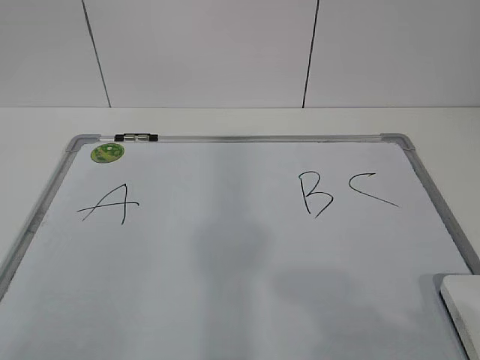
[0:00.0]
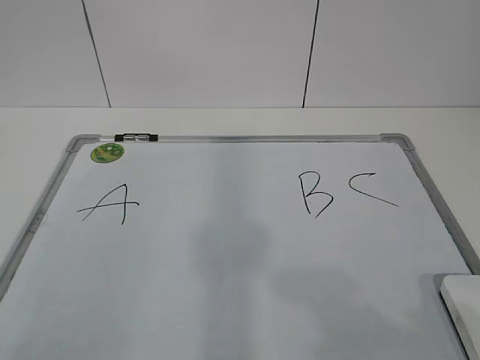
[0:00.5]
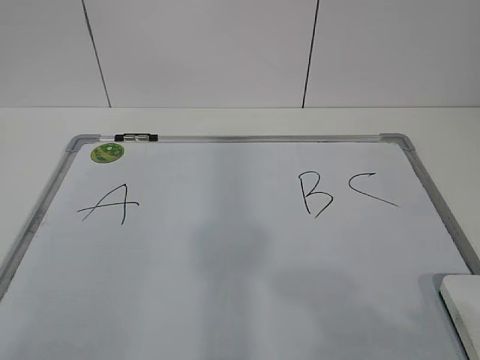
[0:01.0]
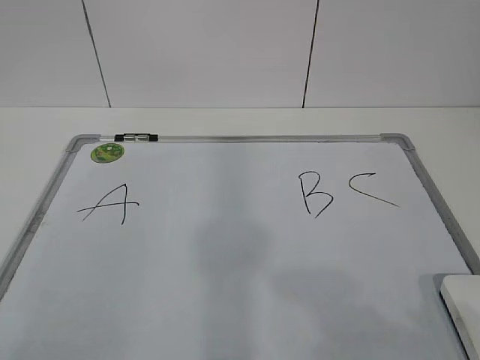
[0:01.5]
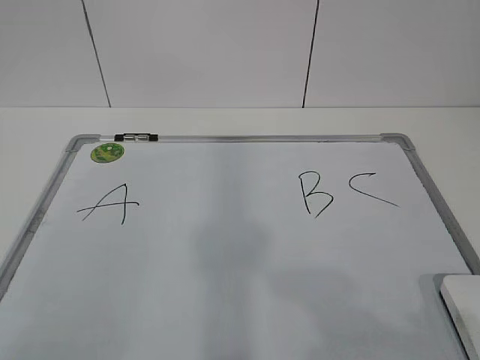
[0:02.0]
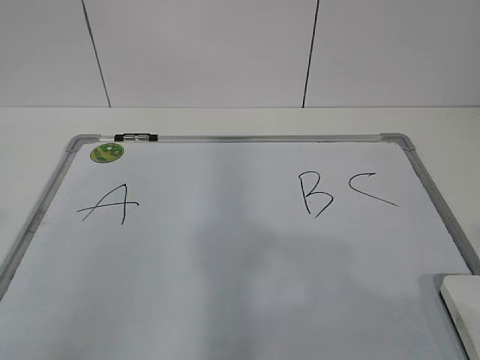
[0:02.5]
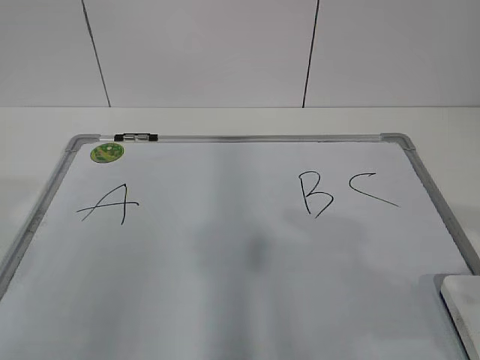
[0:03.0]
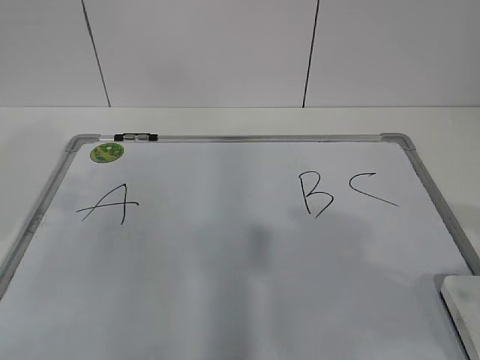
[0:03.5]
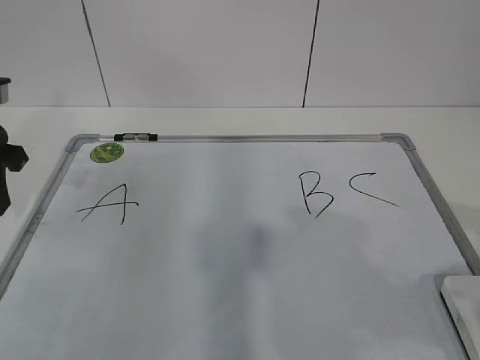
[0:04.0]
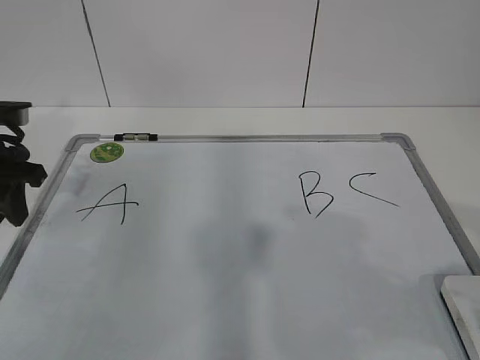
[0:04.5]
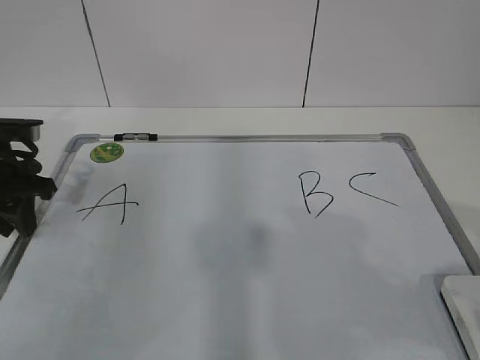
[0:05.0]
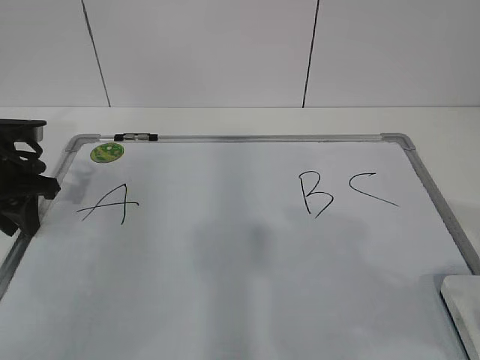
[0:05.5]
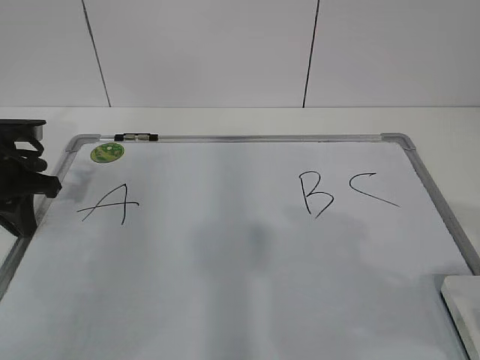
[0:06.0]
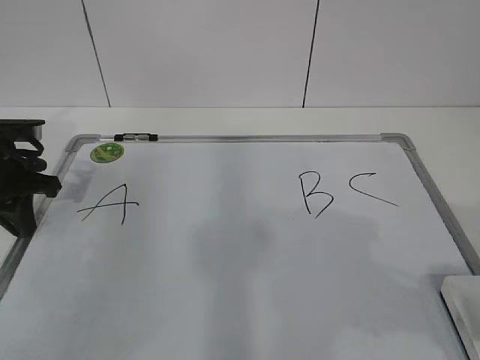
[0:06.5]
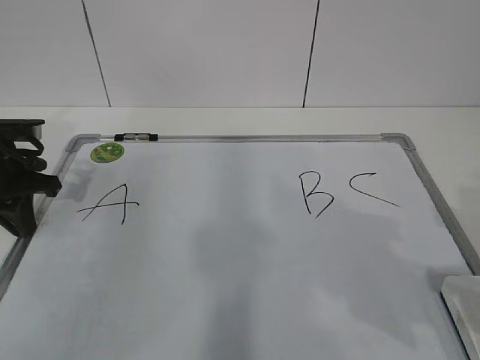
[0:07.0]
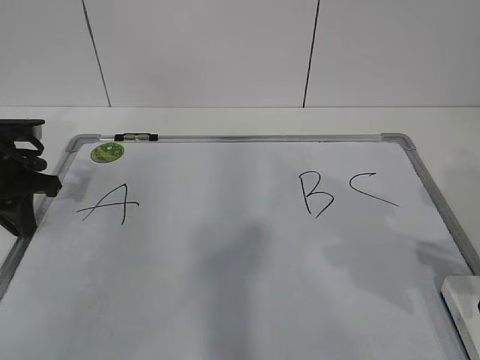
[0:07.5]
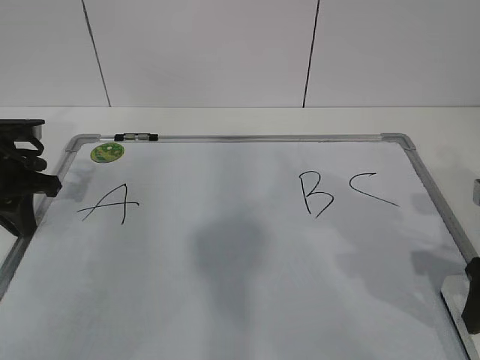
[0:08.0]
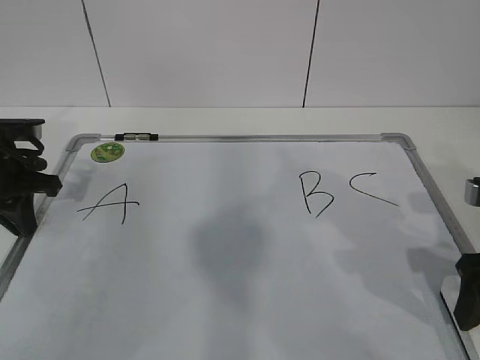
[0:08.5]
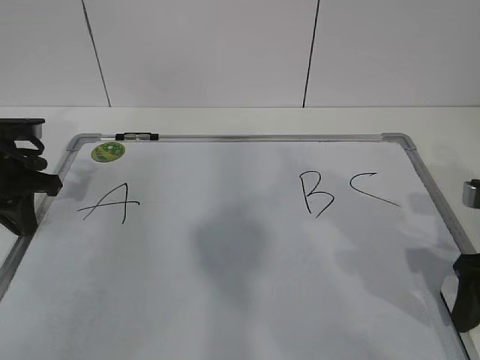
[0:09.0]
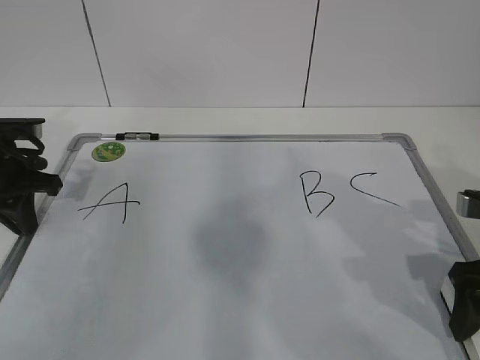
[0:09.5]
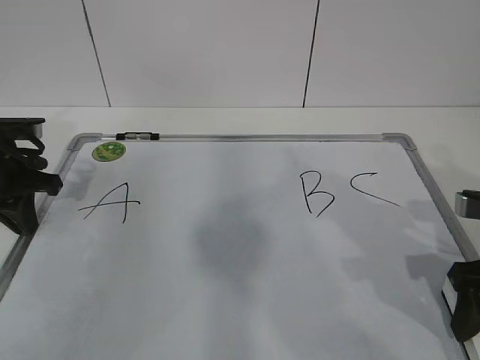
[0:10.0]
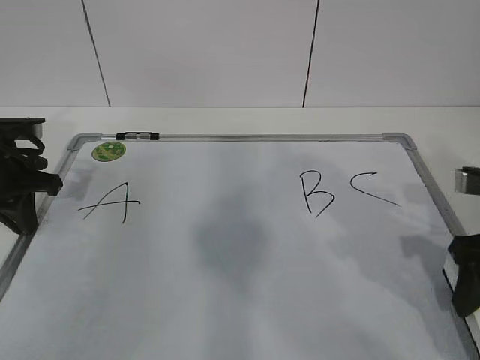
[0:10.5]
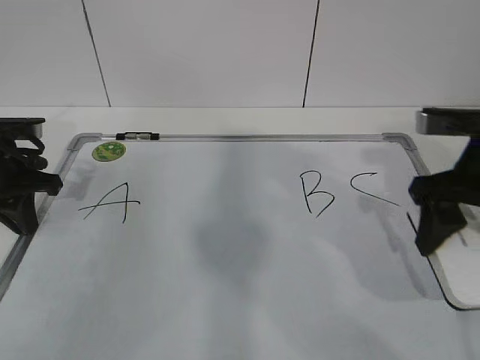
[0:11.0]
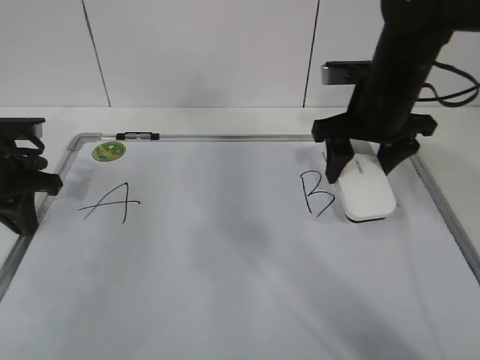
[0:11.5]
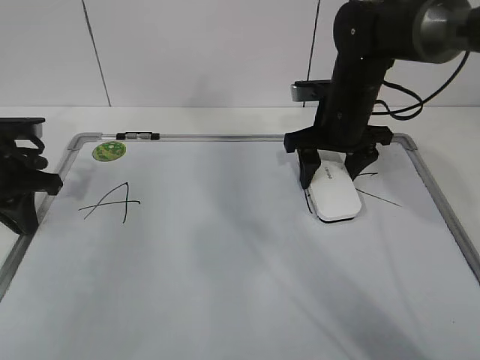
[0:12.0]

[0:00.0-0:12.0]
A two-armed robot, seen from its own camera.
Task of the whole recording: pick up the eraser on the blackboard and erase the letter "B".
Step, 0:00.0 to 0:04.5: Hold the drawing board steady with your left hand.
0:02.0 to 0:04.0: The right gripper moves forward, roughly 10 cm. The left gripper shifts roughly 30 cm forward.
0:04.0 to 0:06.0: The left gripper travels downward by some 10 cm, and closes up.
0:06.0 to 0:08.0: The right gripper heads forward and downward, covering approximately 15 cm, and opens its fingers.
0:08.0 to 0:10.0: The right gripper closes.
0:10.0 to 0:12.0: The right gripper shifts roughly 25 cm forward and to the left.

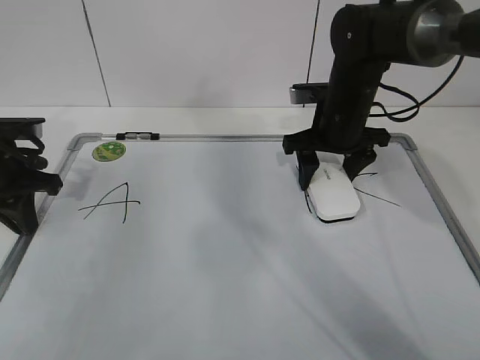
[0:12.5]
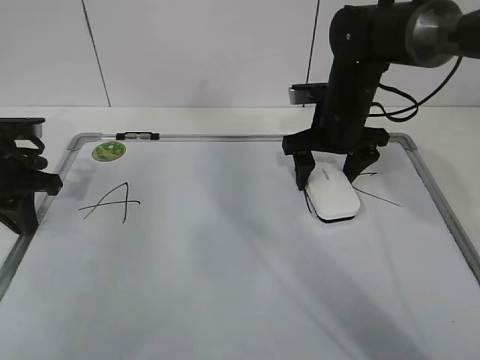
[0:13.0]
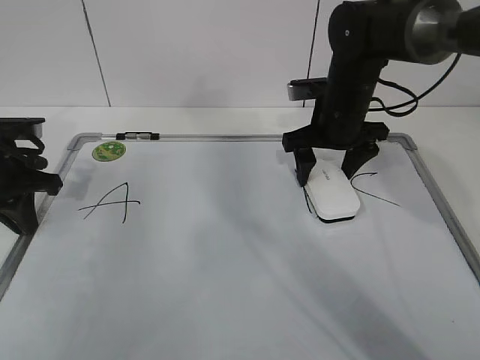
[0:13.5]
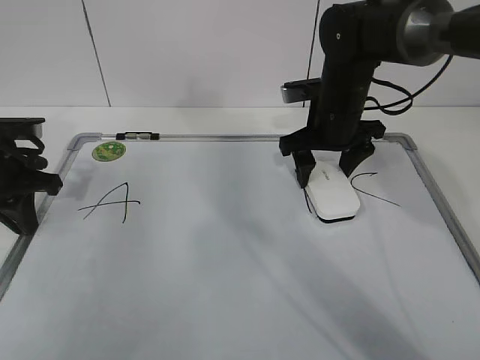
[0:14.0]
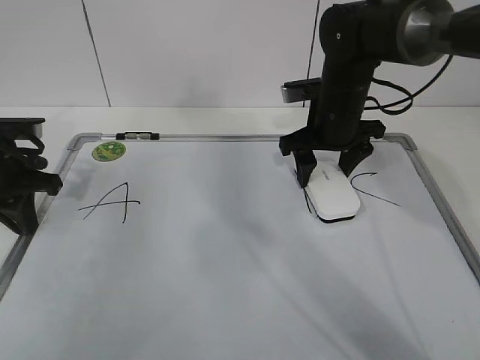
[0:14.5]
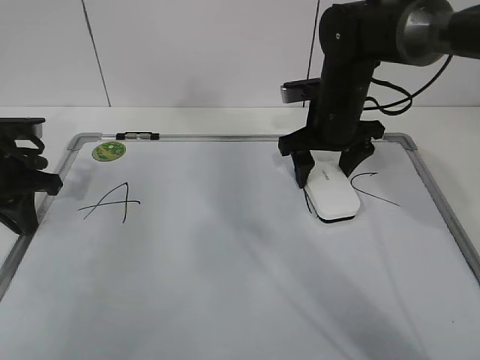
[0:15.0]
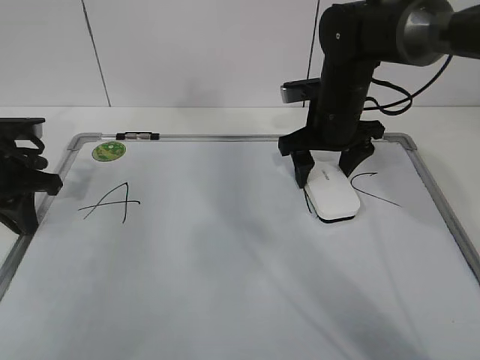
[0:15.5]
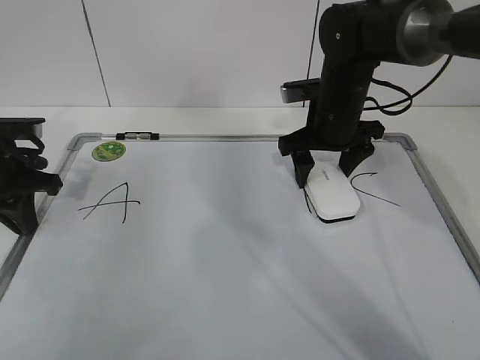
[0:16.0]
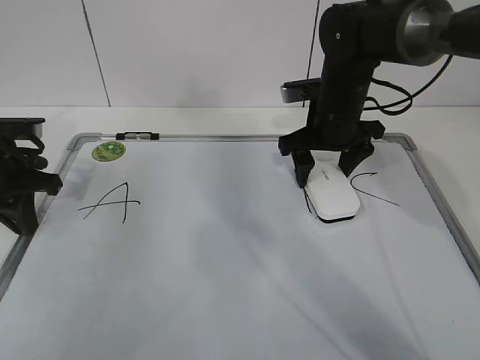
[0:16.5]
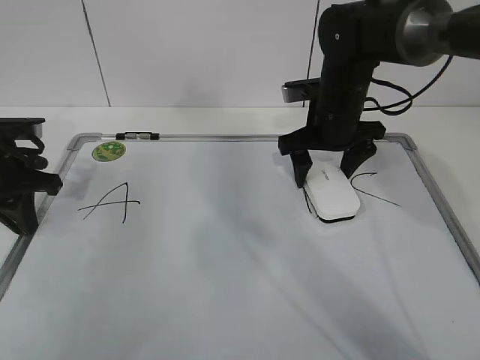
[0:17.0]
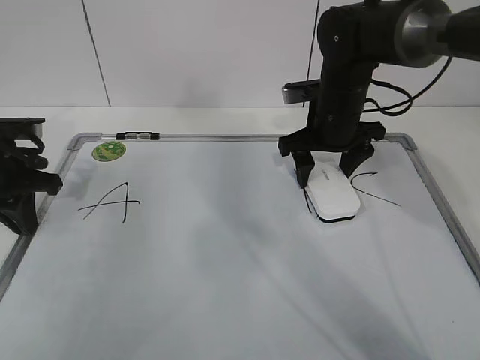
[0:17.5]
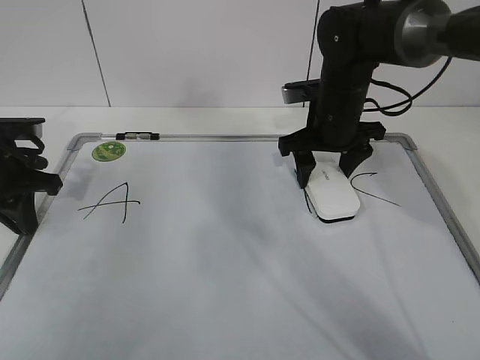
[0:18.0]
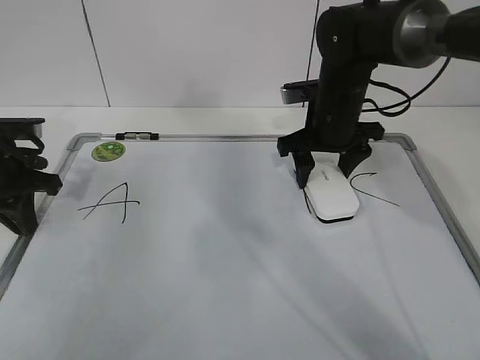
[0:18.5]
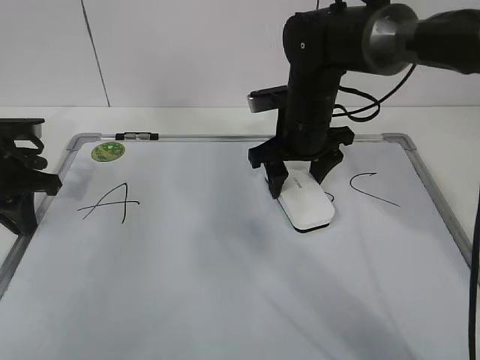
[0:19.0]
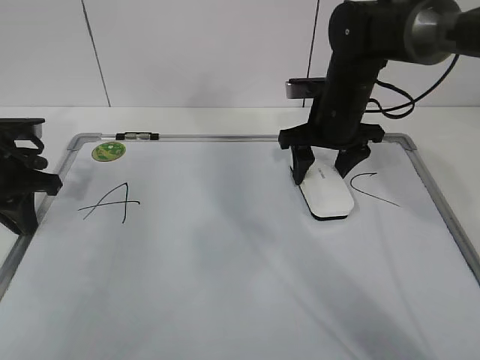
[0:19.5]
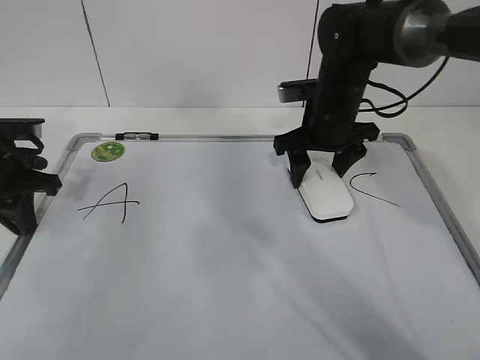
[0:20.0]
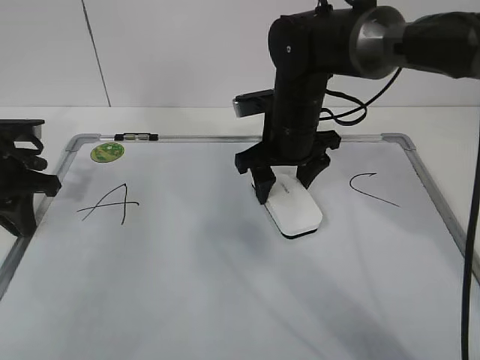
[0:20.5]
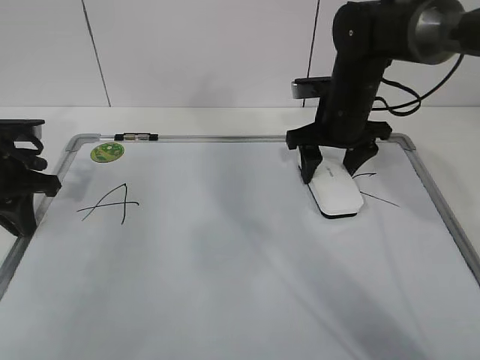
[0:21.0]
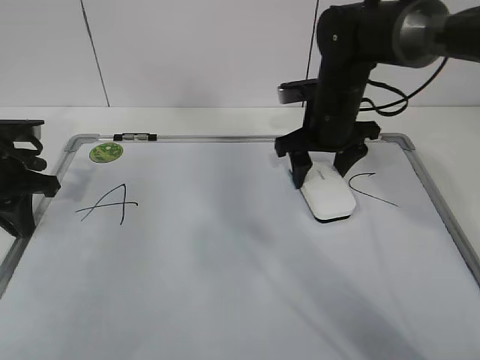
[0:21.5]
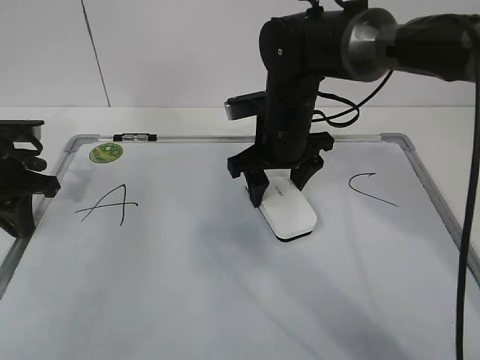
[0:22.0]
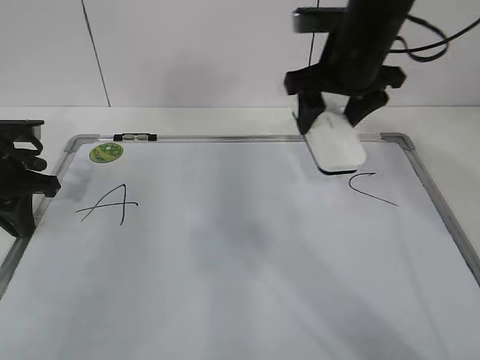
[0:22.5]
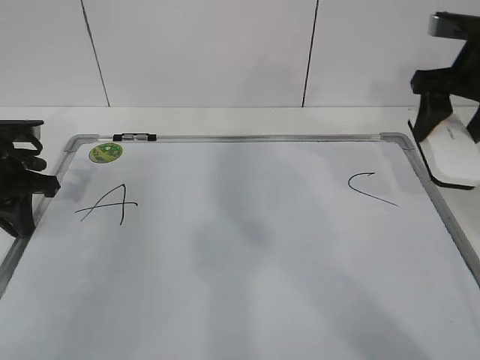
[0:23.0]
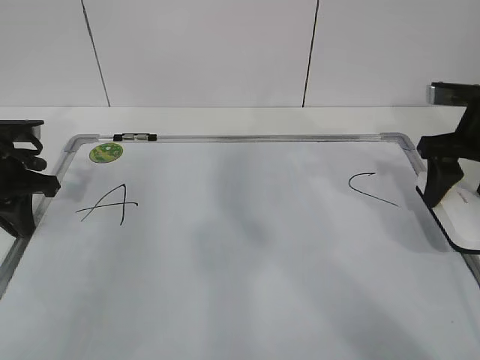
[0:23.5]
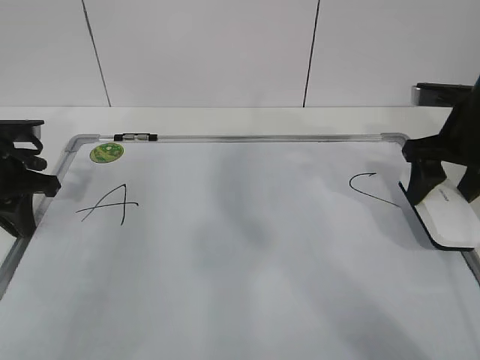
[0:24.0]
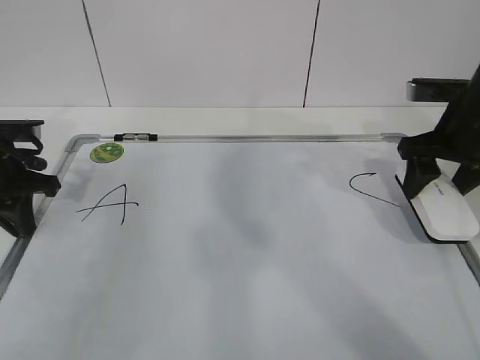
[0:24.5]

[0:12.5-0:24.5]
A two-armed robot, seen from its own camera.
Task of the whole recording: pick up the eraser on the blackboard and erase the letter "B".
Step, 0:12.5 to 0:14.5: Grab the eraser with your right hand.
Step, 0:15.0 to 0:18.0: Erase the letter B with your right hand.
Step, 0:18.5 to 0:21.5: Put down the eraser with your right hand.
0:12.5 to 0:14.5: The right gripper opens, then closes once more.
0:16.5 to 0:18.5: The right gripper closes.
0:18.5 to 0:20.5: The right gripper goes left and right, some 5 cm each way, reversing 2 times.
0:20.5 to 0:22.5: The right gripper travels upward and to the right by roughly 10 cm.
0:22.5 to 0:24.5: The right gripper shifts about 15 cm to the right.

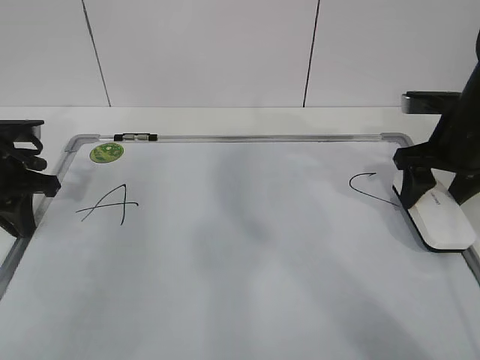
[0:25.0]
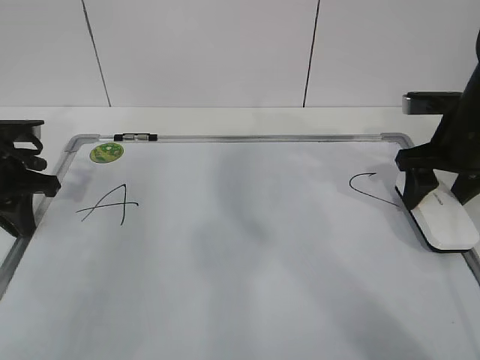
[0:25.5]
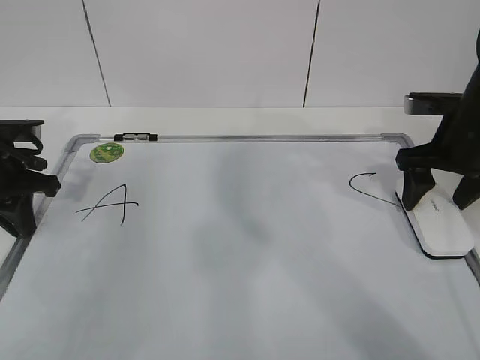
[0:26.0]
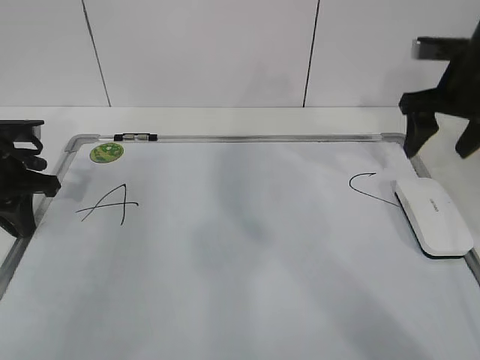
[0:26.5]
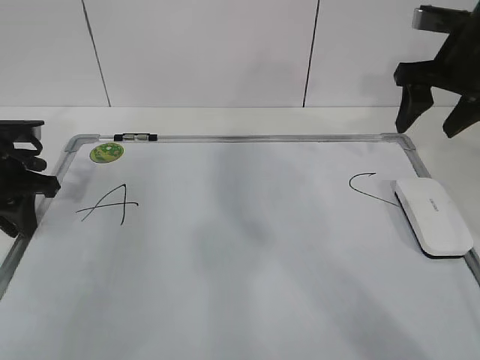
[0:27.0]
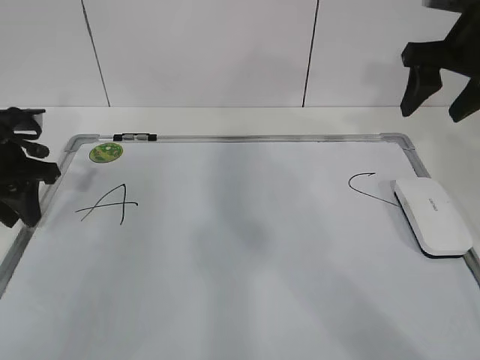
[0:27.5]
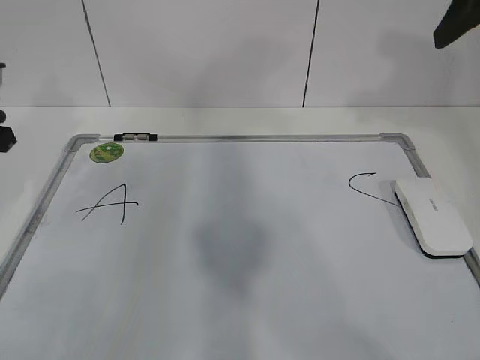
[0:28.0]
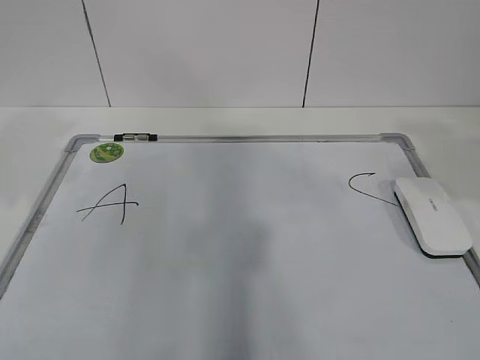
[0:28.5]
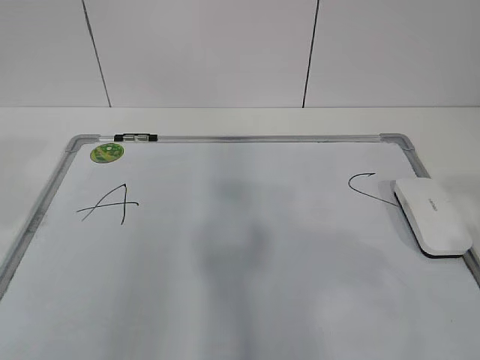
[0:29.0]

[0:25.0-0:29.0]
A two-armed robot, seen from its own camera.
Task of the whole recording: pick up the eraser on the blackboard and erase the letter "B".
0:25.0 to 0:27.0: The right gripper goes approximately 10 cm upward, and opens and closes again.
0:27.0 to 0:29.0: The left gripper goes some 30 cm backward and upward, and opens, while the right gripper is displaced backward by about 35 cm.
